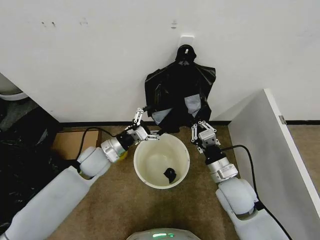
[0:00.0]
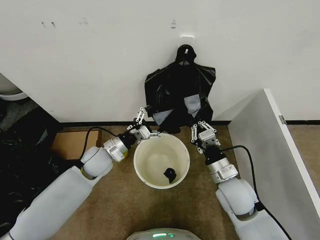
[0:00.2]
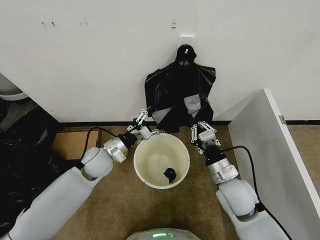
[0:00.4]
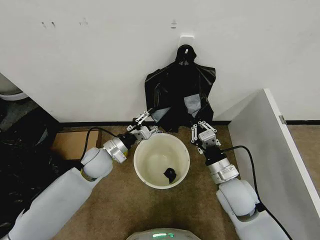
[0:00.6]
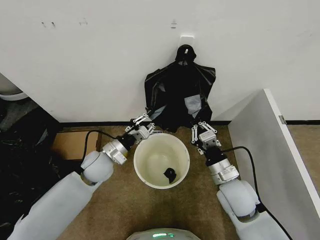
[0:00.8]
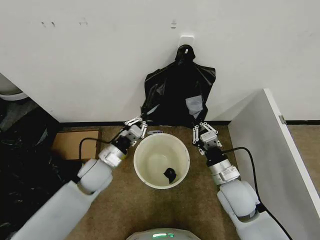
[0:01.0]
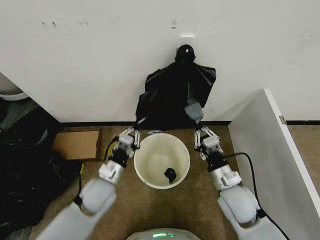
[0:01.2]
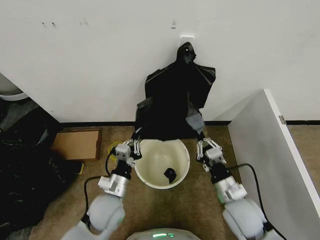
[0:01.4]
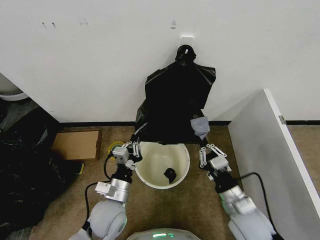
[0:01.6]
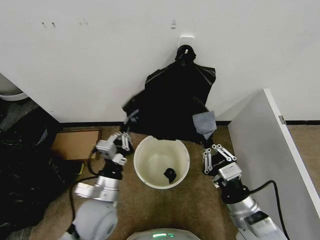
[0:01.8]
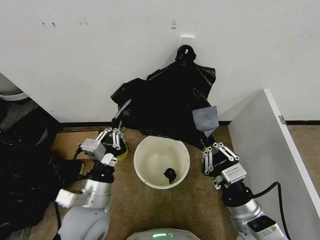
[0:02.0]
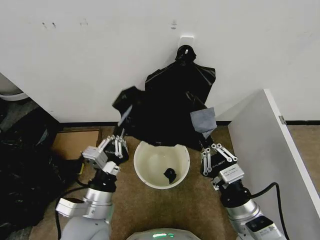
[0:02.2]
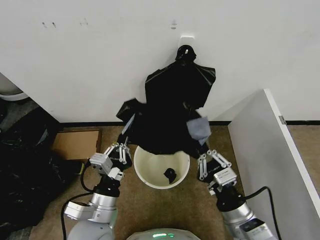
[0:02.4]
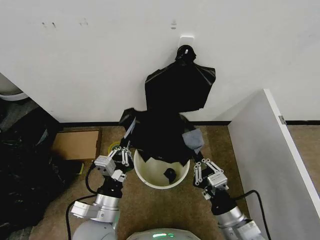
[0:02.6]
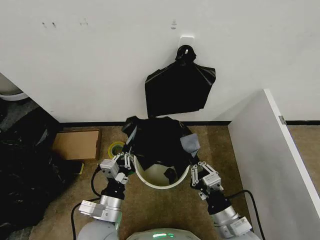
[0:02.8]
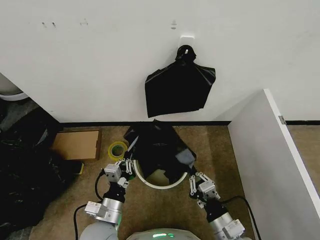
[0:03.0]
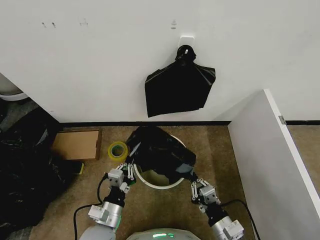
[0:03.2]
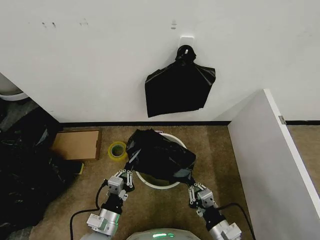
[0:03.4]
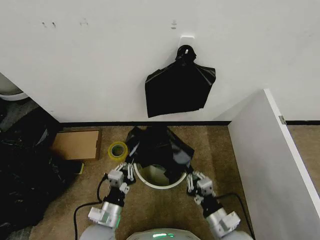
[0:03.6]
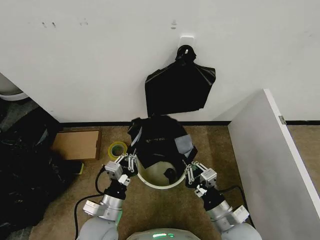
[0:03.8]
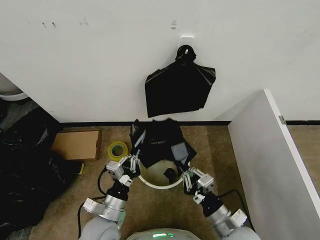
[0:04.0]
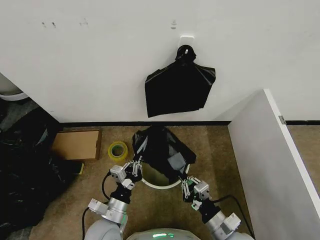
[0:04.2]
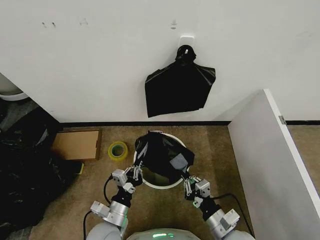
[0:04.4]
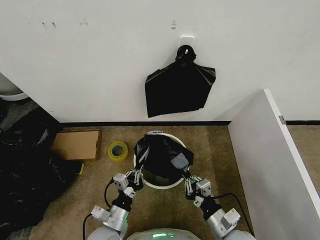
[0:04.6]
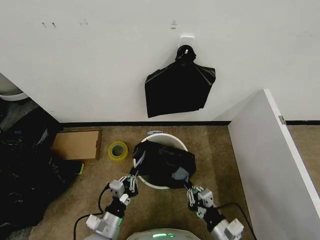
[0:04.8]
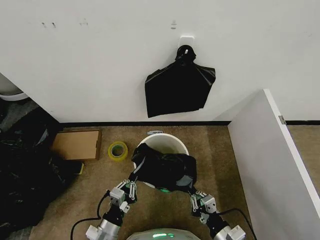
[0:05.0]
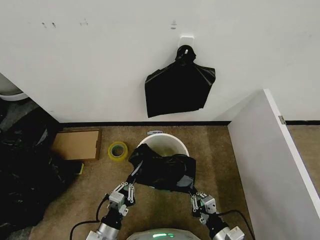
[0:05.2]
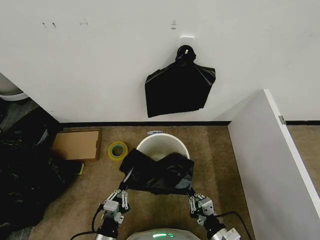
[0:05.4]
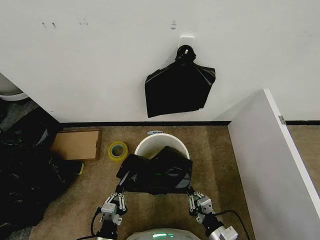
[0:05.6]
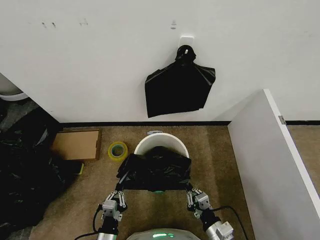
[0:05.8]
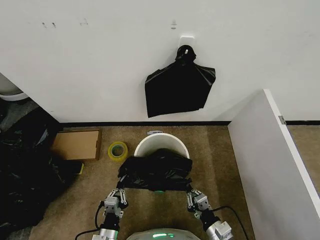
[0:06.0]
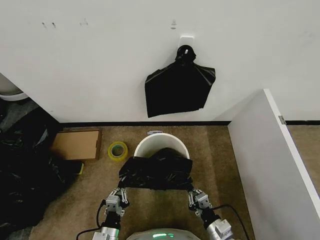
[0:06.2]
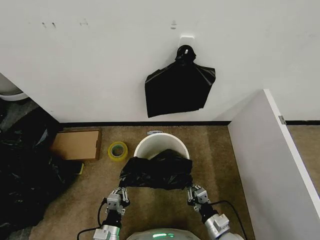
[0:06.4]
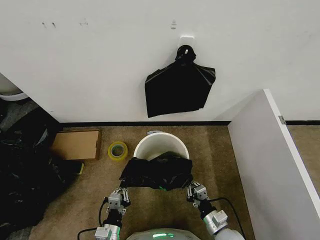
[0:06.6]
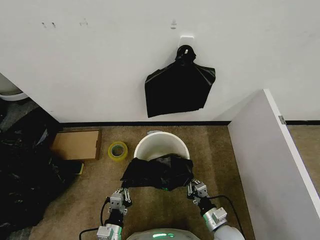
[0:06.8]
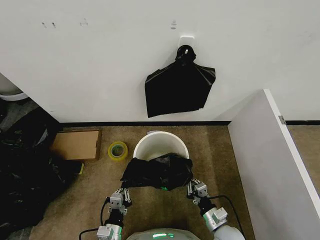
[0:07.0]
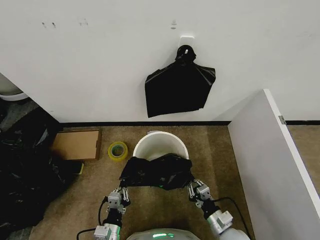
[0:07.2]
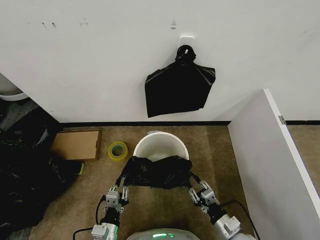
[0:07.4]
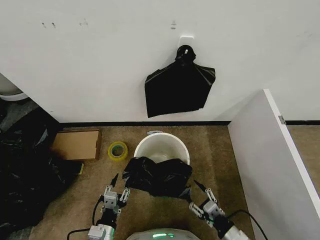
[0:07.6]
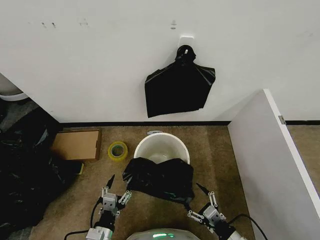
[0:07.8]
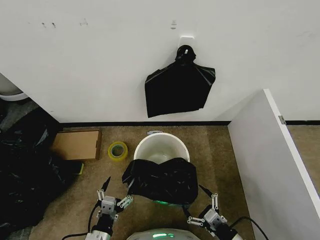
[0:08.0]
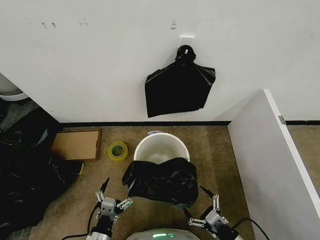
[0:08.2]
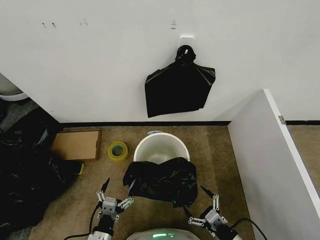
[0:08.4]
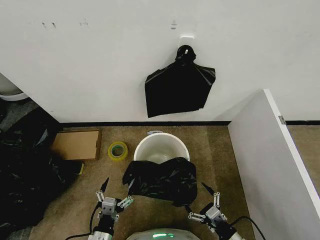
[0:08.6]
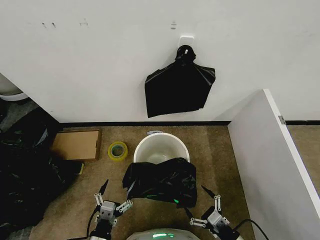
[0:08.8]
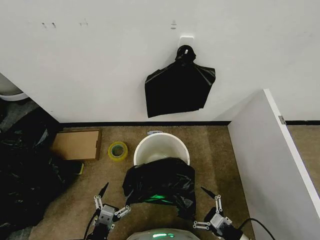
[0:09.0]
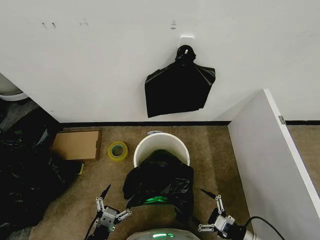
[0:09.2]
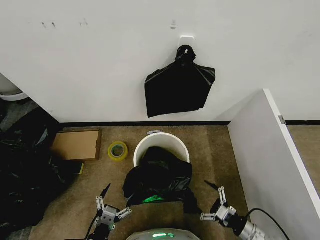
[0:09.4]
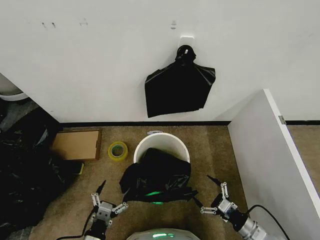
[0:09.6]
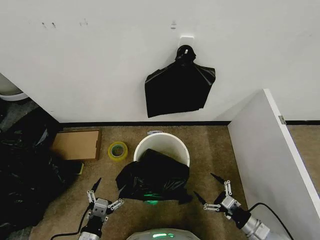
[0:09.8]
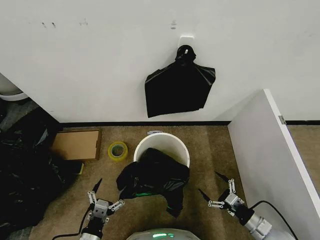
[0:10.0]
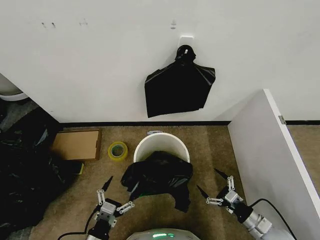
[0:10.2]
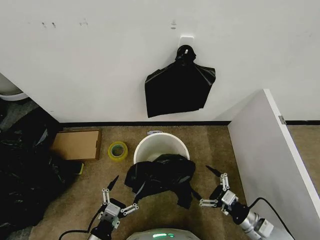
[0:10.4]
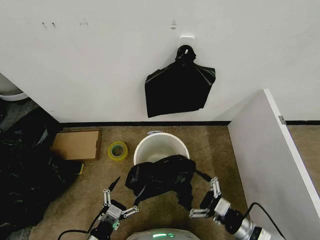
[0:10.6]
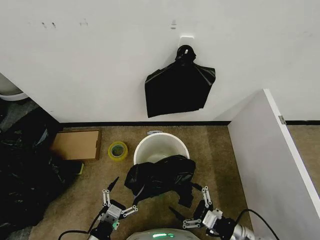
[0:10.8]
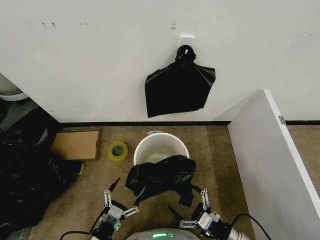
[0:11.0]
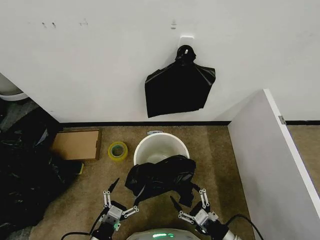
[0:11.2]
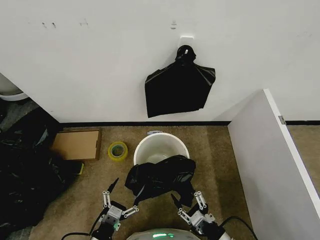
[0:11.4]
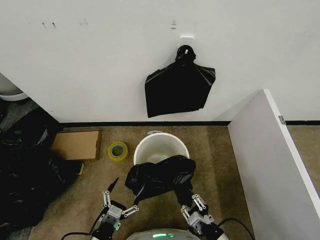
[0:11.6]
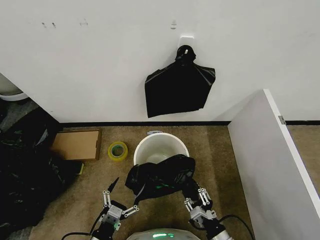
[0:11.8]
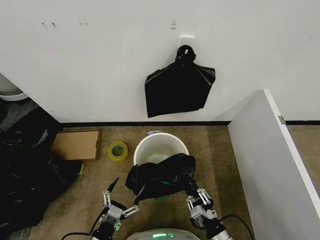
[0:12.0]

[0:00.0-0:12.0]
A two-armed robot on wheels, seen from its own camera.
Task of the whole recording: Place the garbage bag over the trash bin.
0:00.0 to 0:01.6: The left gripper is displaced backward and to the right by about 15 cm, and closes up. Meanwhile the right gripper heads backward, covering about 10 cm.
0:01.6 to 0:03.0: Both grippers move backward, approximately 5 cm. The left gripper goes upward and returns, some 10 cm each way.
0:03.0 to 0:04.4: The grippers stay close to where they were, moving slightly.
0:04.4 to 0:06.0: The left gripper goes some 10 cm downward and backward; the right gripper moves downward, some 5 cm.
0:06.0 to 0:07.6: The left gripper opens, while the right gripper moves approximately 5 cm, and opens up.
0:07.6 to 0:09.0: The left gripper moves approximately 5 cm, and opens up. Meanwhile the right gripper opens its fingers.
0:09.0 to 0:10.4: The right gripper shifts approximately 5 cm forward.
0:10.4 to 0:12.0: The right gripper travels to the left and backward by about 15 cm, and closes its fingers.

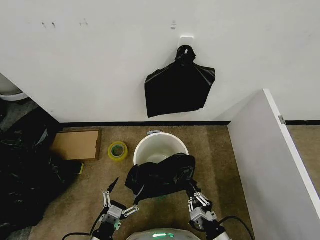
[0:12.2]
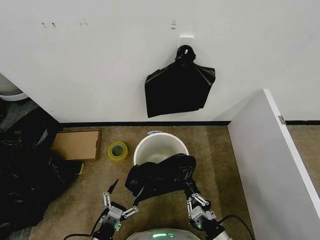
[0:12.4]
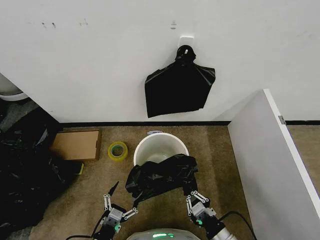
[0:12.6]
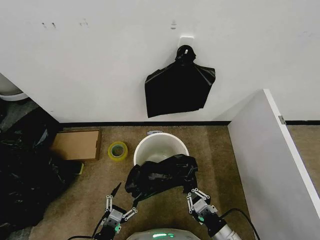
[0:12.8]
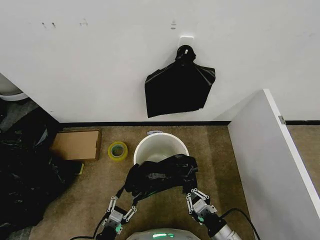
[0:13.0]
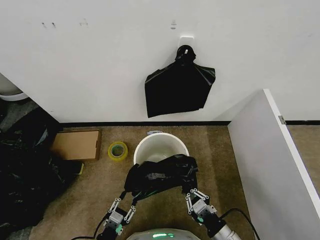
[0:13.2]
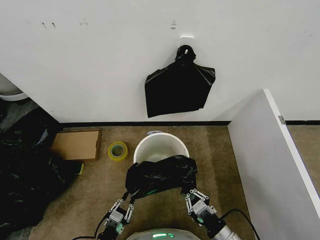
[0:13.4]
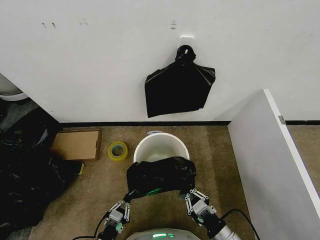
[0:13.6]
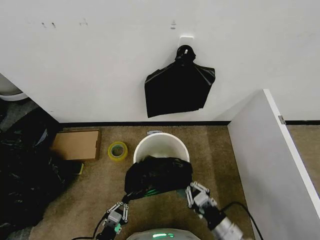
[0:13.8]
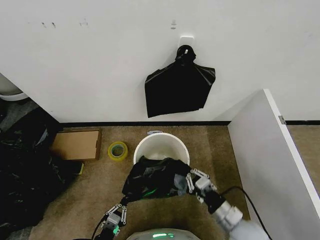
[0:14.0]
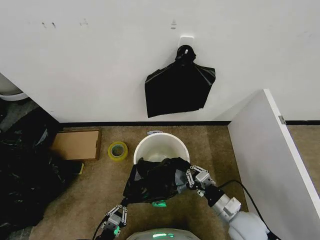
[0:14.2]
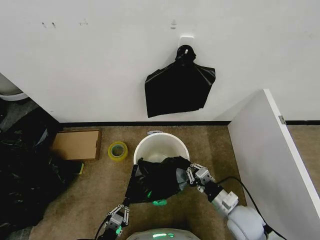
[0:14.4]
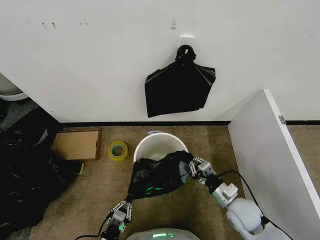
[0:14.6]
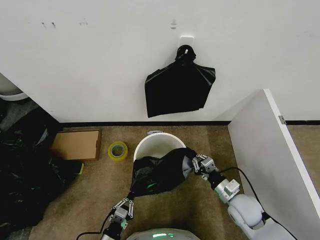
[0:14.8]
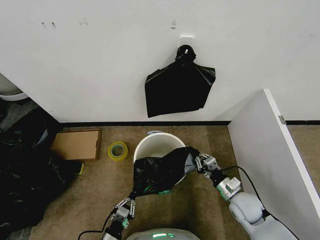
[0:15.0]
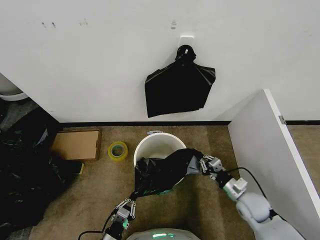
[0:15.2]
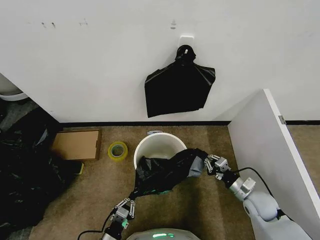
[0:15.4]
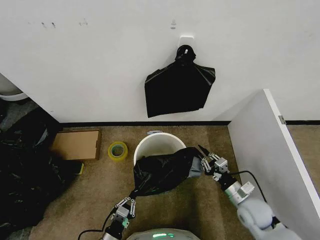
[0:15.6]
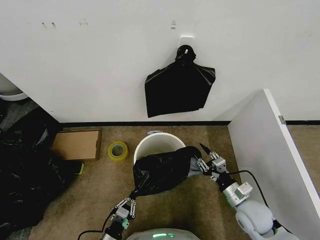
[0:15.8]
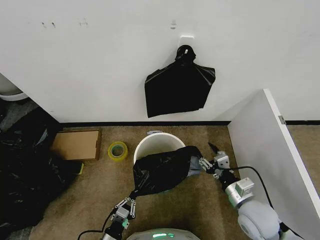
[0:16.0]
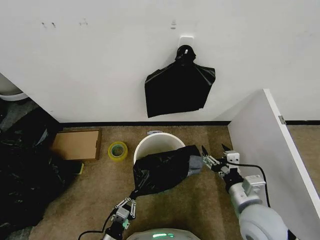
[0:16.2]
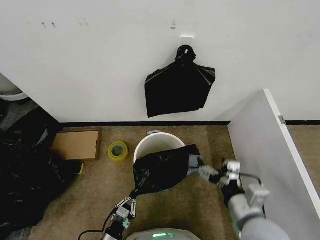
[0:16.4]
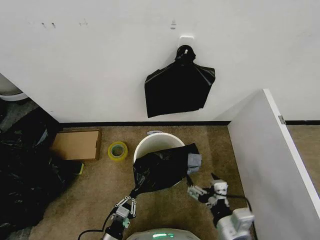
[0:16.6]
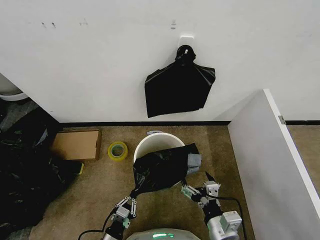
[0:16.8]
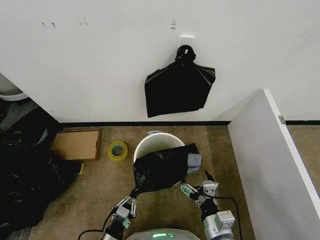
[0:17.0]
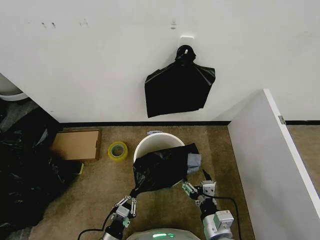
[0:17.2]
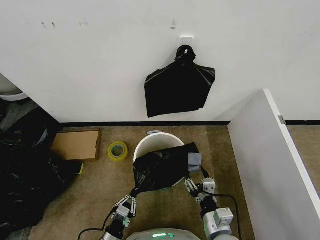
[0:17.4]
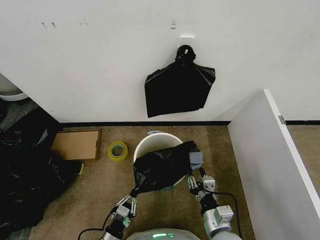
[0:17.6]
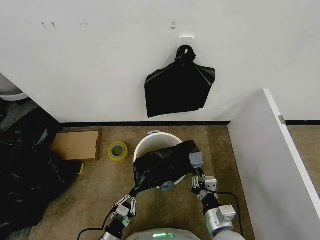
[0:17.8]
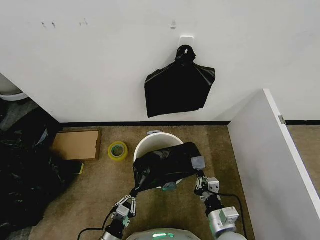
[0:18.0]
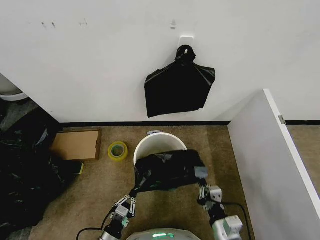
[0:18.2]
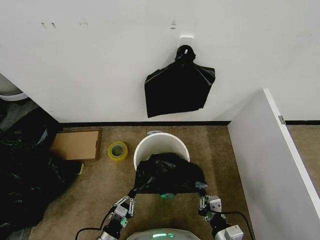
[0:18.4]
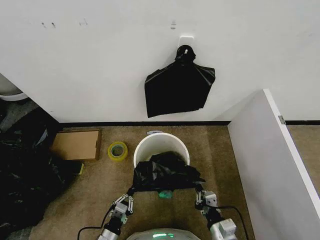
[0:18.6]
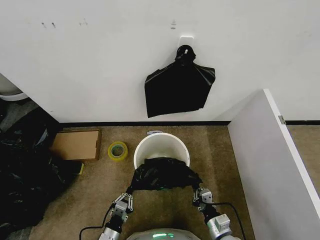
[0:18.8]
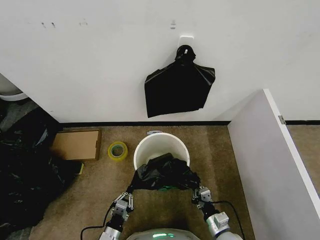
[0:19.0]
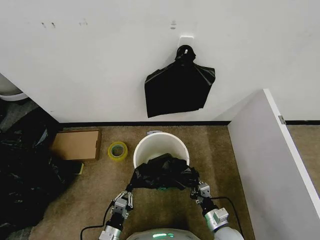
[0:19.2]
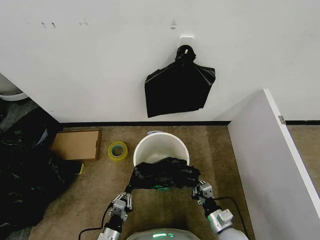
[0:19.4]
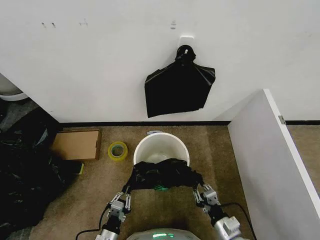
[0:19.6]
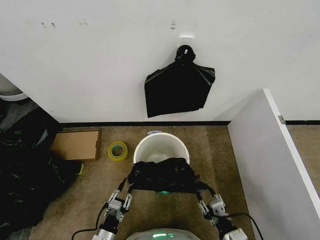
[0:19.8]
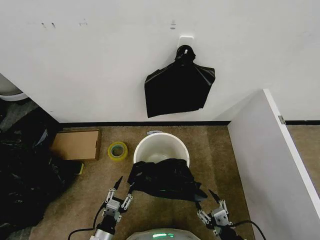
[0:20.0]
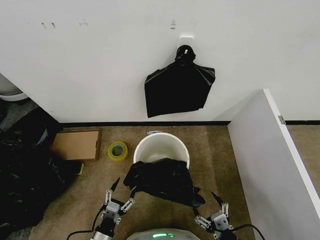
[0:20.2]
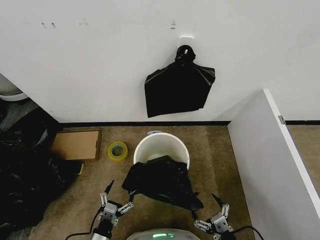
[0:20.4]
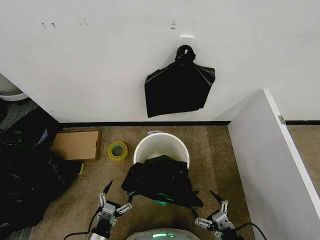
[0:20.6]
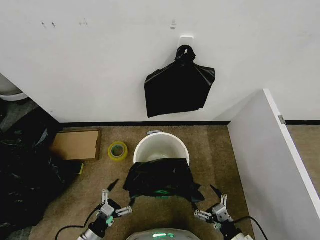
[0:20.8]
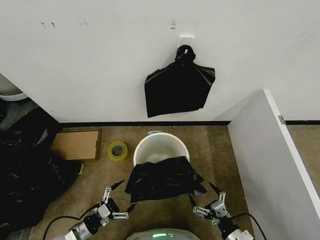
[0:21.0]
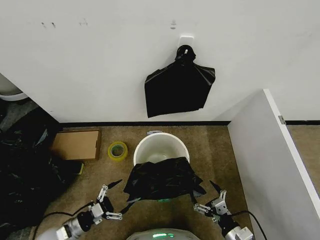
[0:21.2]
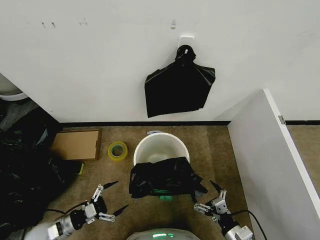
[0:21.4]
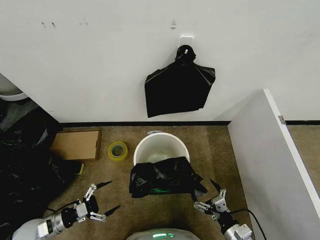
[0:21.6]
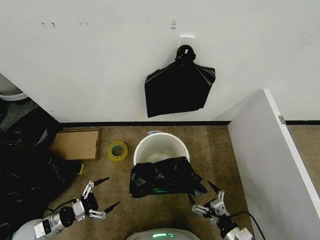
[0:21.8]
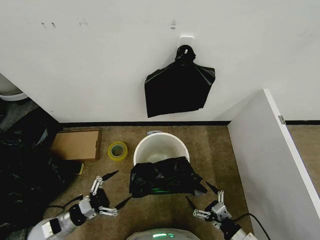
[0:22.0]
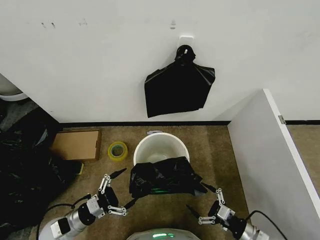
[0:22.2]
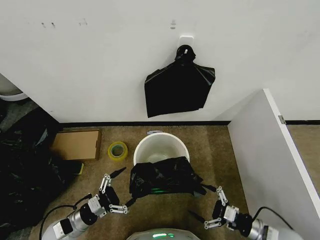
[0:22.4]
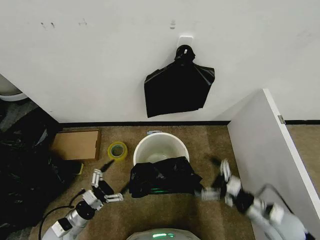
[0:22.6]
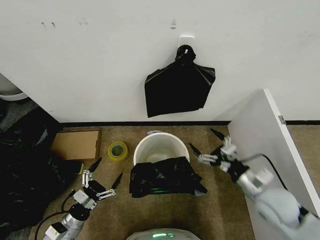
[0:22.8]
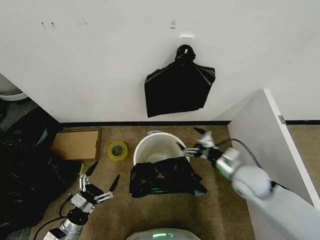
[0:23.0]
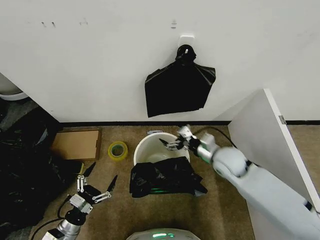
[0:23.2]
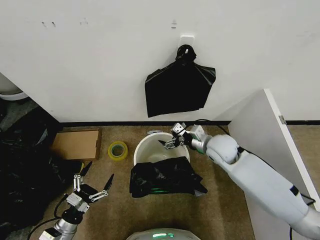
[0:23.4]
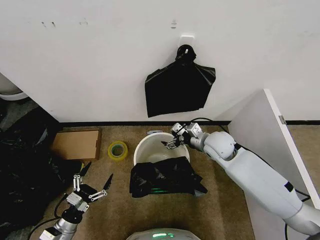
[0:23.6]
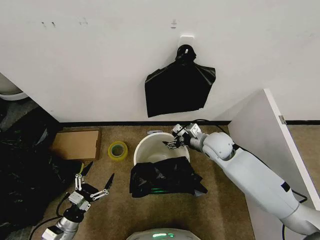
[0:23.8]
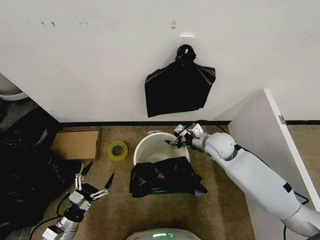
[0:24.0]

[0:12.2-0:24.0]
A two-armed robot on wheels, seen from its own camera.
Task of the whole recording: Place the garbage bag over the trash bin.
0:12.2 to 0:13.6: The left gripper moves downward, roughly 5 cm, and closes its fingers.
0:13.6 to 0:15.2: The right gripper moves forward and to the right, some 20 cm.
0:15.2 to 0:16.6: The right gripper heads backward, to the left and upward, covering roughly 25 cm, and opens up.
0:16.6 to 0:18.2: The right gripper heads downward, covering some 10 cm, and closes up.
0:18.2 to 0:19.6: The right gripper travels downward by roughly 5 cm.
0:19.6 to 0:21.0: The right gripper opens; the left gripper shifts roughly 10 cm to the left, and opens.
0:21.0 to 0:22.6: The left gripper moves some 10 cm to the left and comes back, while the right gripper travels upward, forward and to the right by roughly 15 cm.
0:22.6 to 0:24.0: The right gripper travels forward and to the left by some 25 cm, and closes.
